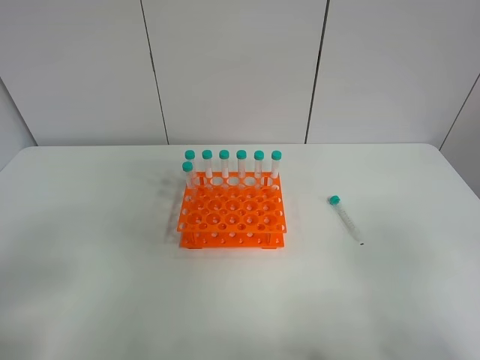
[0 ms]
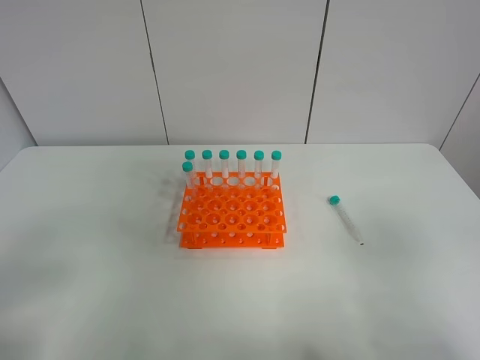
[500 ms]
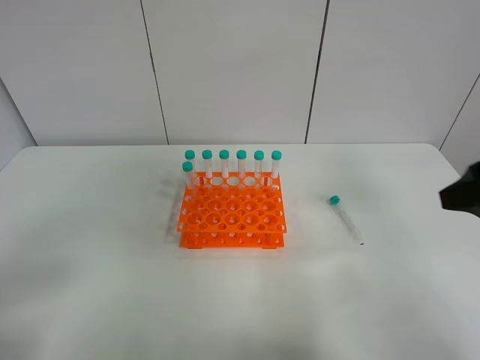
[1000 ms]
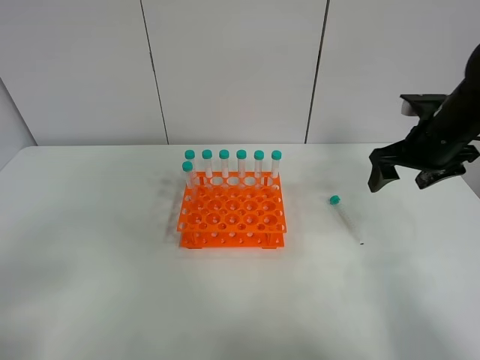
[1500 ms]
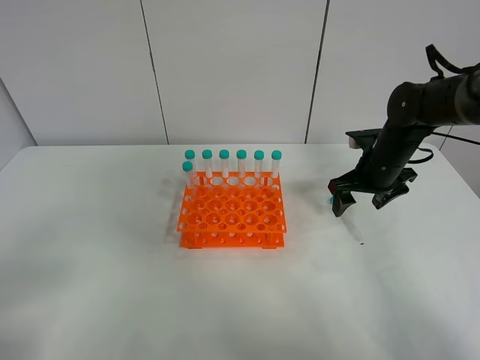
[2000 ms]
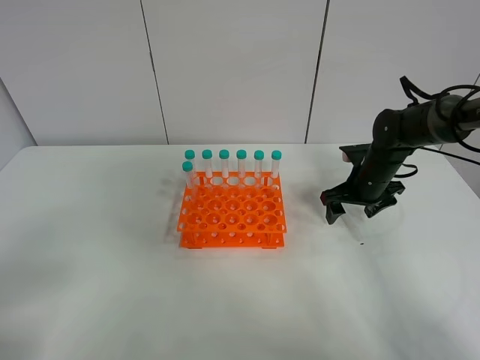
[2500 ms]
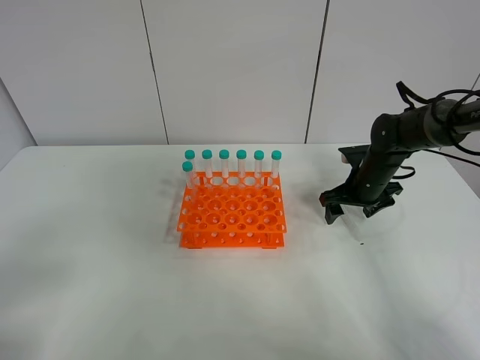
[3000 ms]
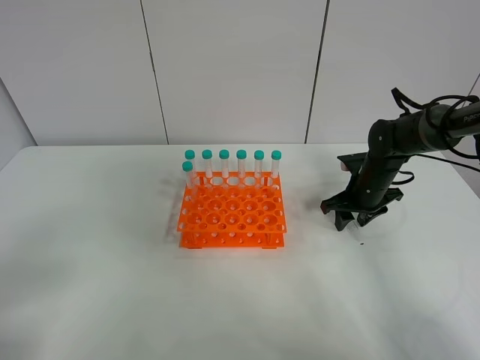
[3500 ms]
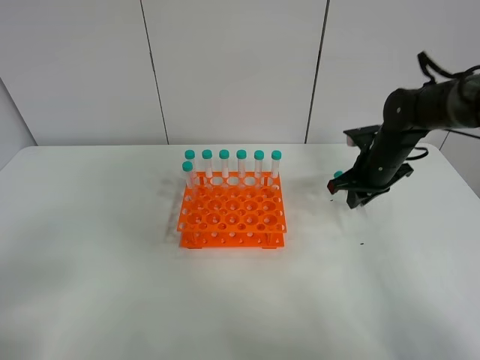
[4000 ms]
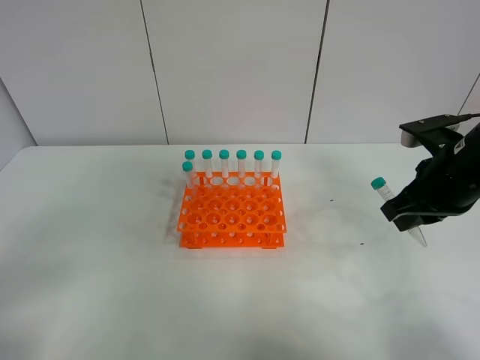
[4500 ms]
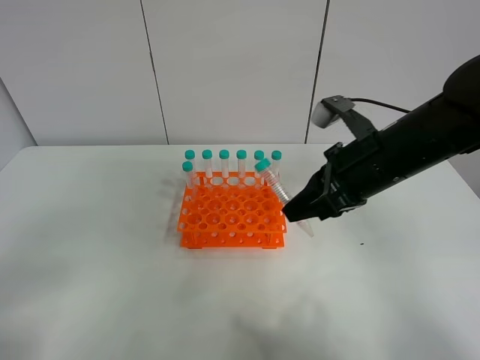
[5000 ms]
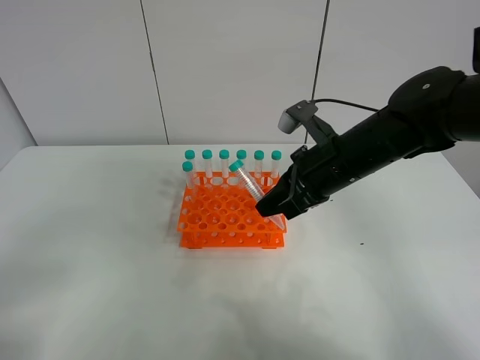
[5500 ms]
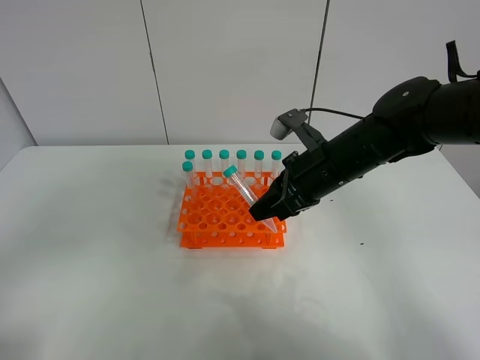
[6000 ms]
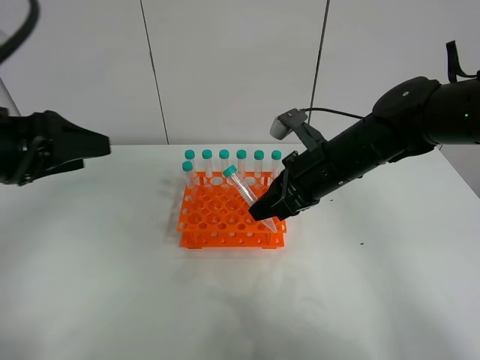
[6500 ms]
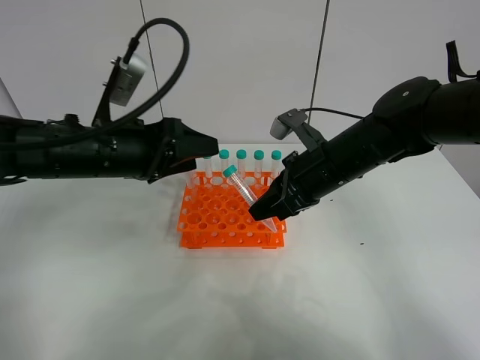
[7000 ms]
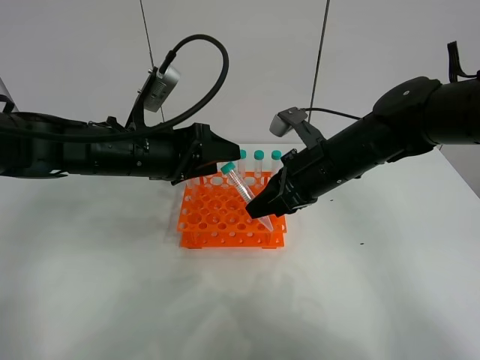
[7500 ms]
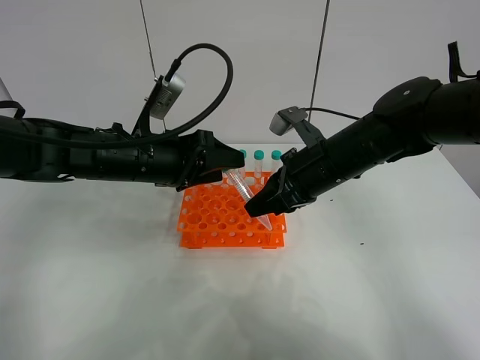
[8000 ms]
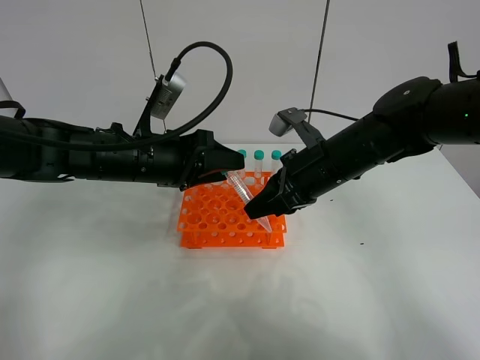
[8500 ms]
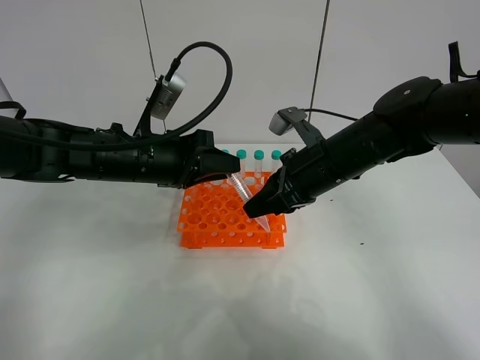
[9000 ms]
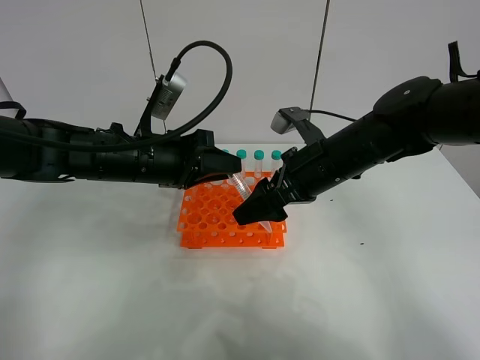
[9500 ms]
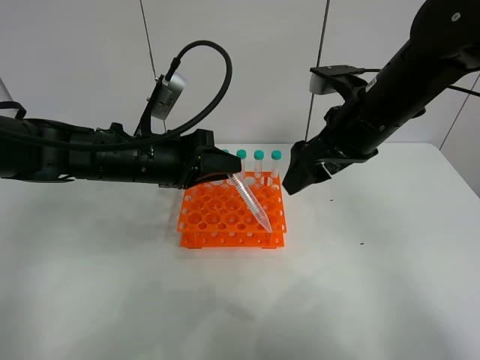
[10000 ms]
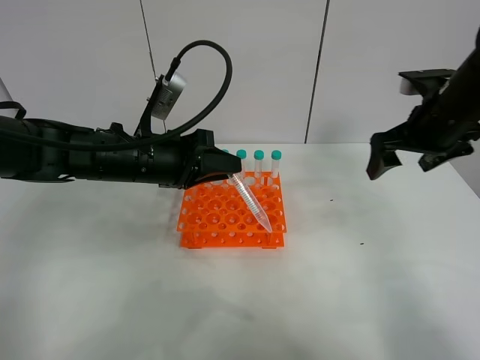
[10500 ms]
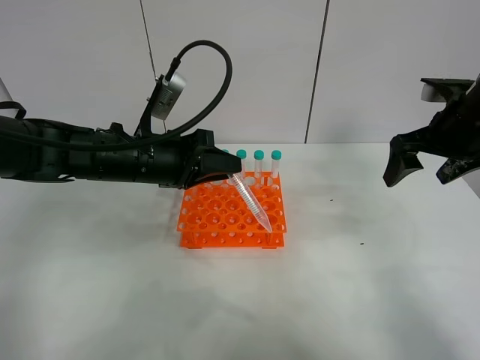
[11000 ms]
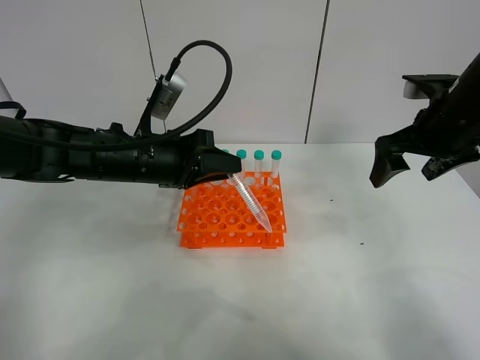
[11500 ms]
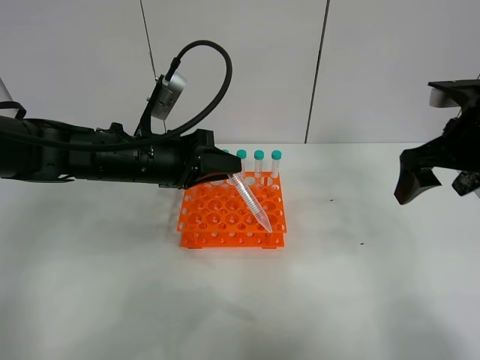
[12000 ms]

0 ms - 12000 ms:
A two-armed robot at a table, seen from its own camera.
Task of the whole recording: Put the test tube on the table back onto the test tube rack.
Step, 0 ms - 3500 ms: Pick up the test tube with the right gripper.
Step, 4000 ms - 9000 ms: Move the test tube from the right gripper to the left gripper.
0 ms - 2000 ms: The right gripper is displaced forward by roughly 40 cm.
2000 ms - 4000 ms: The right gripper closes.
4000 ms - 6000 ms: The right gripper goes about 15 cm to the left, backward and upward; the left gripper moves upward, some 5 cm.
6000 ms - 8000 ms: The left gripper heads forward, to the right and downward, covering roughly 35 cm.
8000 ms - 10000 ms: The right gripper shifts roughly 5 cm upward, and opens up; the left gripper closes its fingers.
10000 ms - 12000 ms: The right gripper shifts about 10 cm to the right.

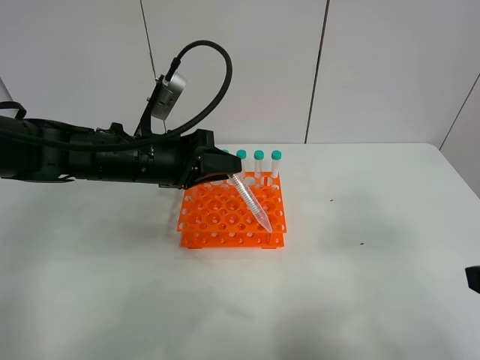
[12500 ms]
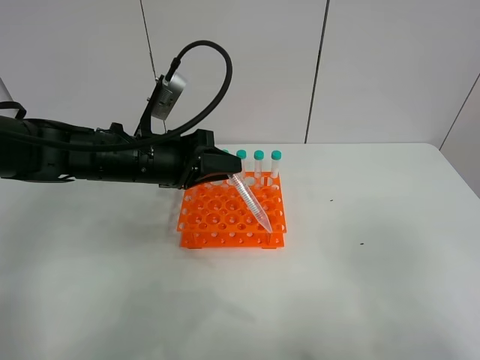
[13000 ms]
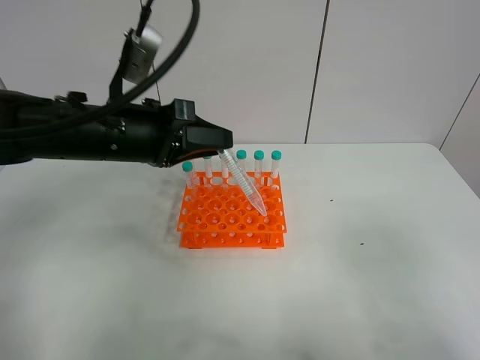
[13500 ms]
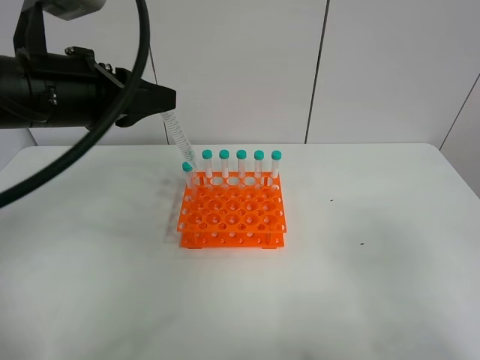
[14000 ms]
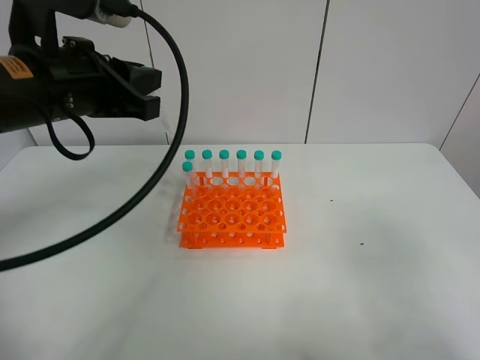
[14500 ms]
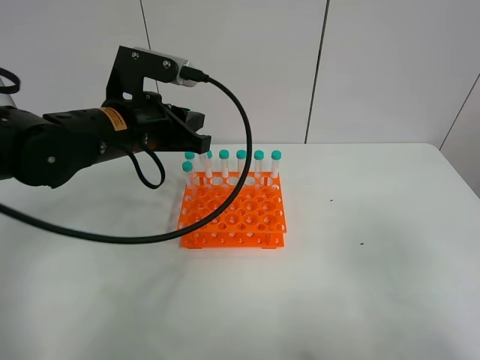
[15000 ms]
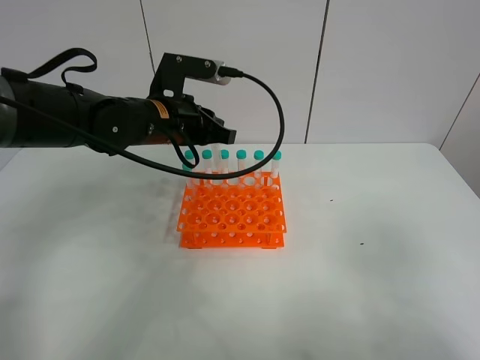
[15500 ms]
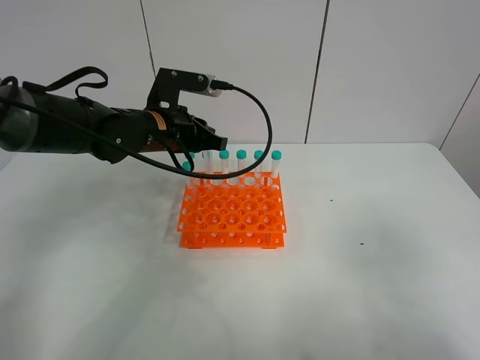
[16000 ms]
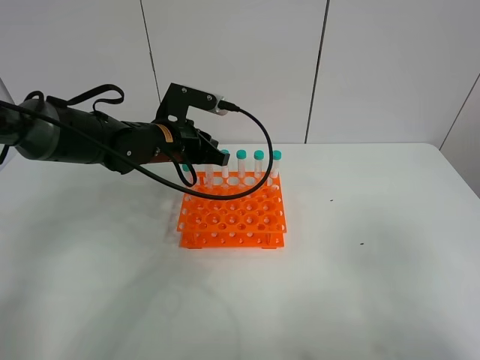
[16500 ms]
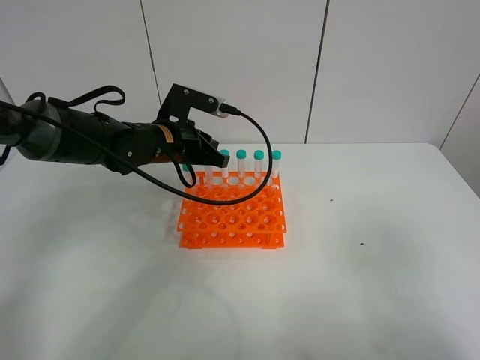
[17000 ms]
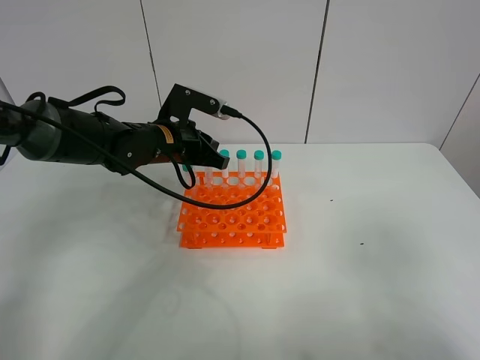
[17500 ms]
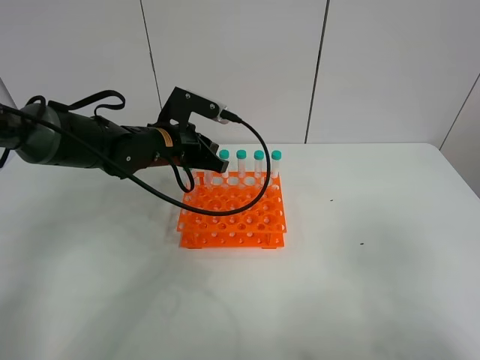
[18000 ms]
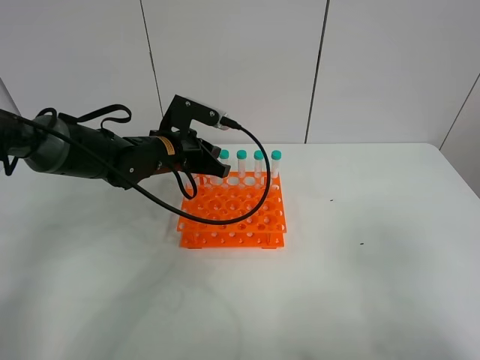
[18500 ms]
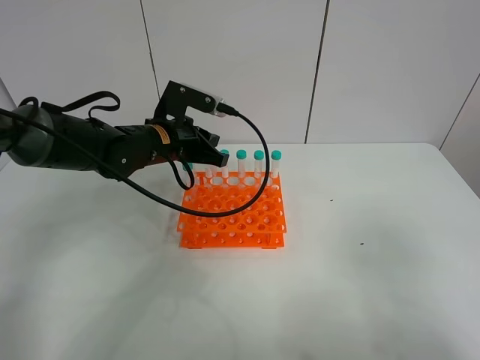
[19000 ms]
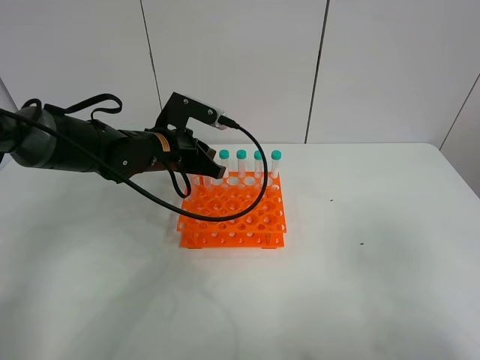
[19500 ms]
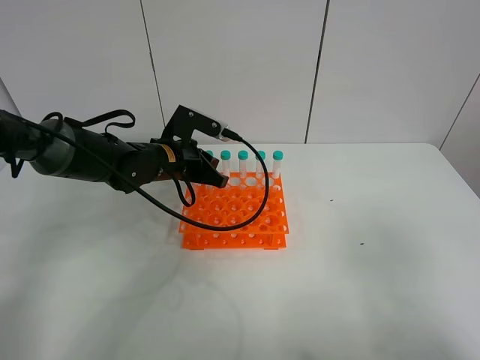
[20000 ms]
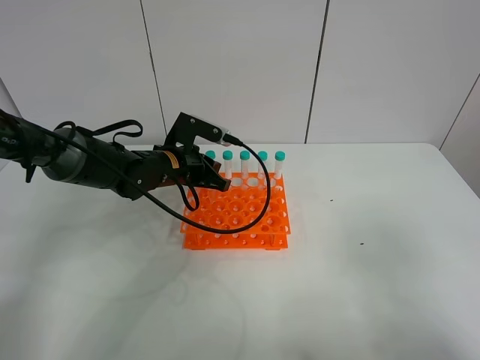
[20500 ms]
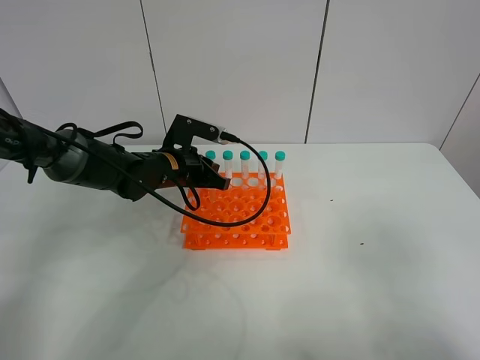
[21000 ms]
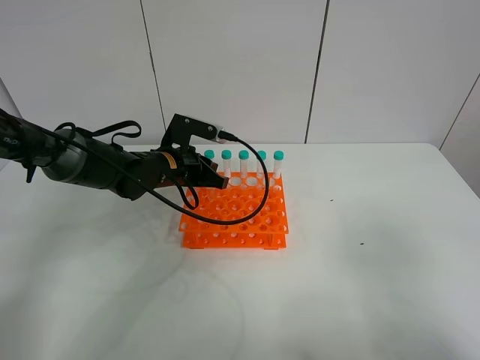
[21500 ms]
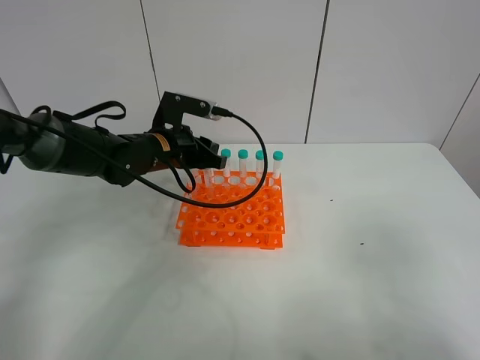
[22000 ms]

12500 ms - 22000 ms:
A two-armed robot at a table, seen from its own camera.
Task of the whole recording: Put the test tube on the table back onto the test tube rack.
Step, 12500 ms - 21500 ms: Place the test tube on the test tube rack with the left gripper.
12500 ms - 14500 ms: The left gripper moves upward and backward, about 15 cm. Meanwhile the right gripper goes roughly 5 cm backward.
14500 ms - 16500 ms: The left gripper heads downward, forward and to the right, covering approximately 20 cm.
16500 ms - 20000 ms: There are only small adjustments of the grippers.
20000 ms - 22000 ms: The left gripper opens up.

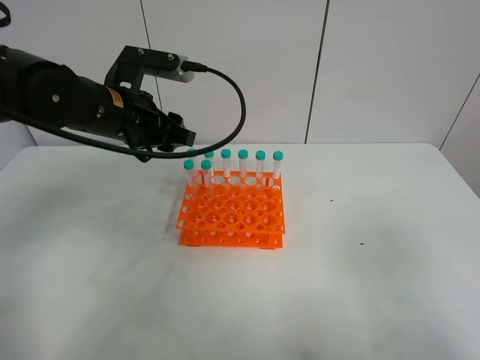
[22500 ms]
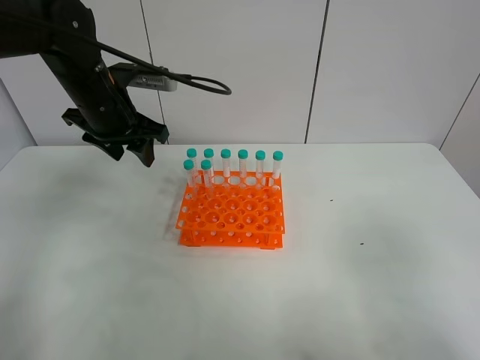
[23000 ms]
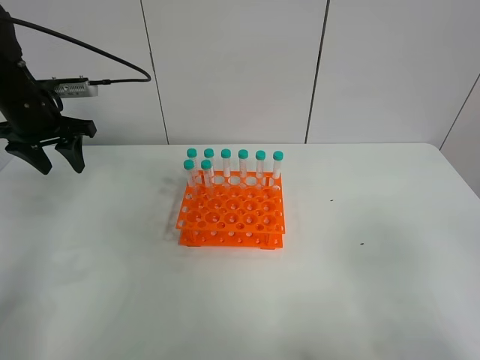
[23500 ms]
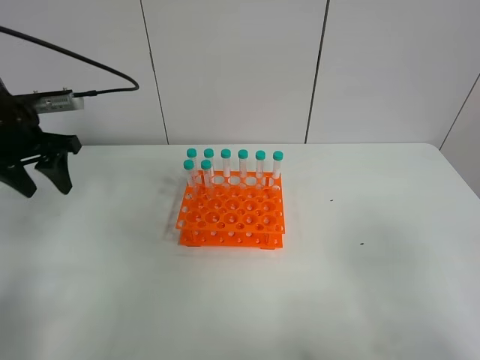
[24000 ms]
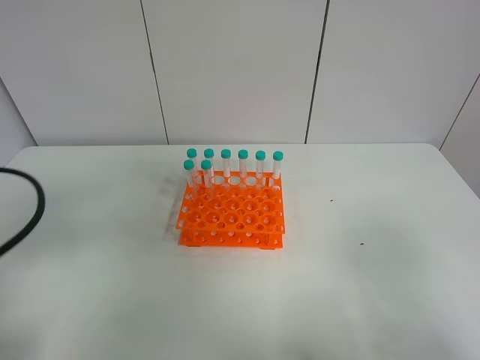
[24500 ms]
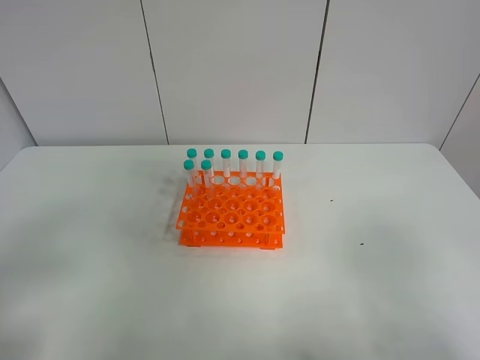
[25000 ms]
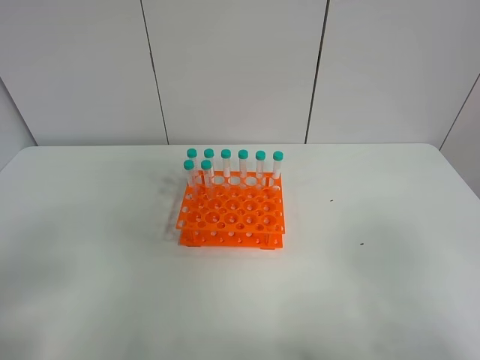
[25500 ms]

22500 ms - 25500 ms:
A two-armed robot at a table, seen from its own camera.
Task of the whole recording: Put the test tube on the table back onto the test tube rack.
22500 ms - 24000 ms: The left gripper goes some 15 cm to the left.
24000 ms - 25500 ms: The left gripper heads backward, covering roughly 30 cm.
